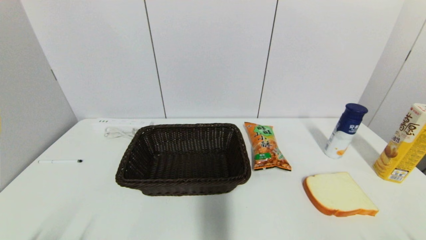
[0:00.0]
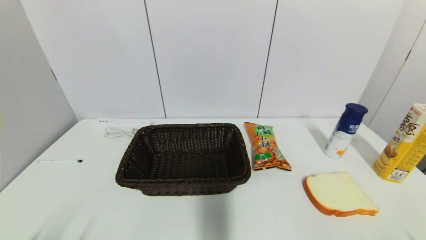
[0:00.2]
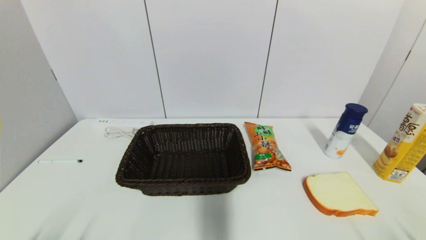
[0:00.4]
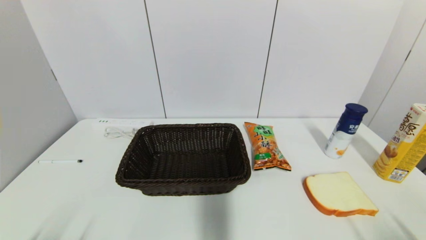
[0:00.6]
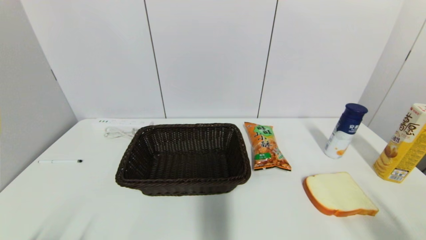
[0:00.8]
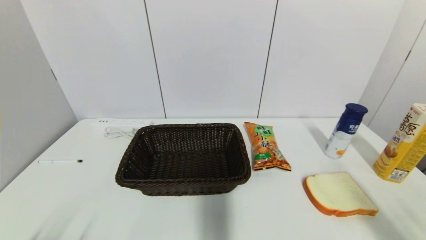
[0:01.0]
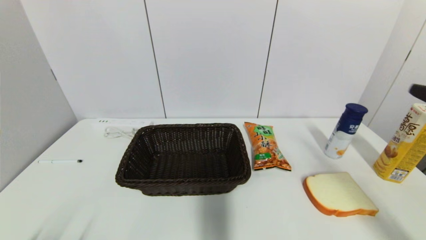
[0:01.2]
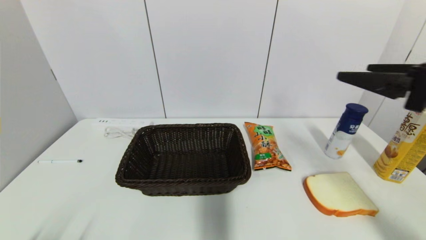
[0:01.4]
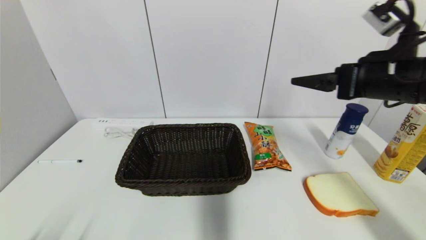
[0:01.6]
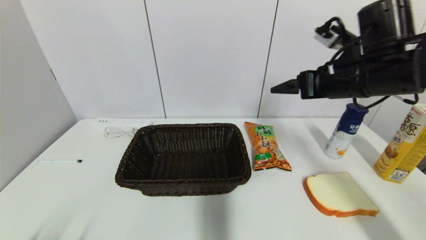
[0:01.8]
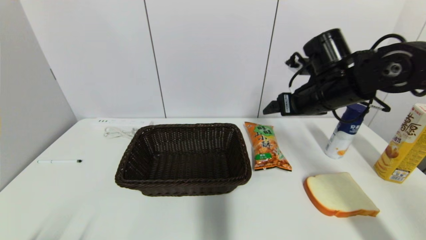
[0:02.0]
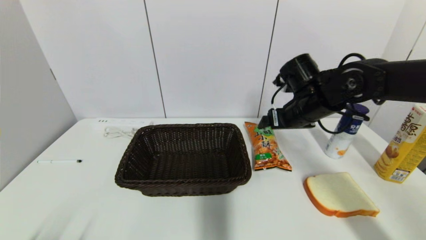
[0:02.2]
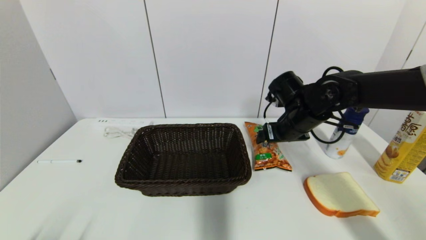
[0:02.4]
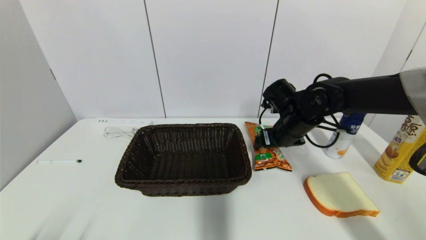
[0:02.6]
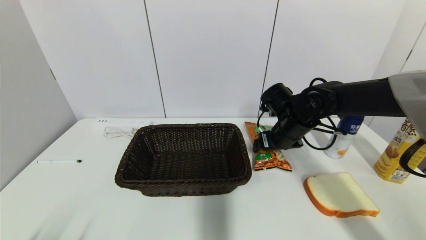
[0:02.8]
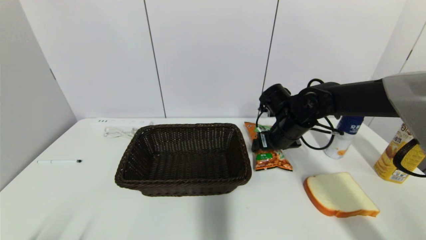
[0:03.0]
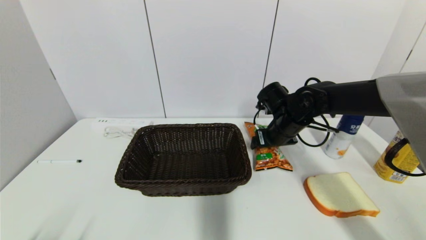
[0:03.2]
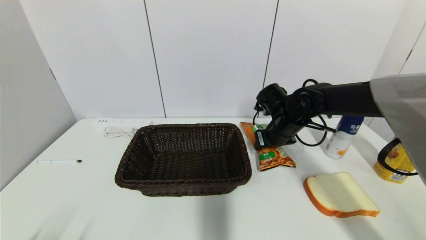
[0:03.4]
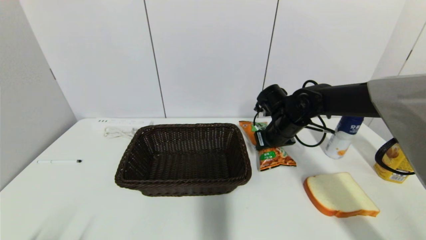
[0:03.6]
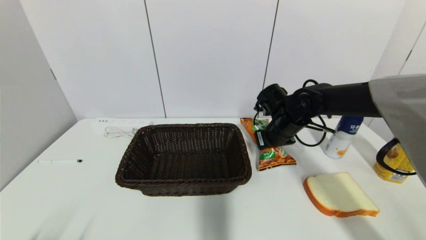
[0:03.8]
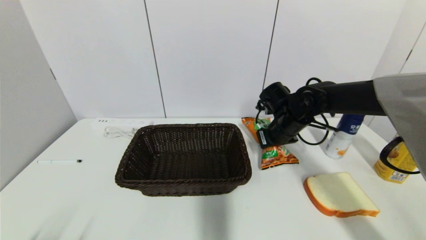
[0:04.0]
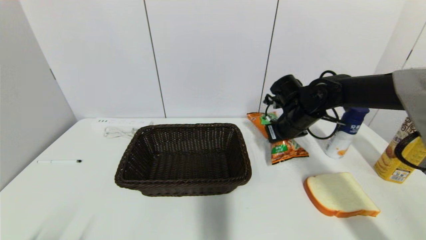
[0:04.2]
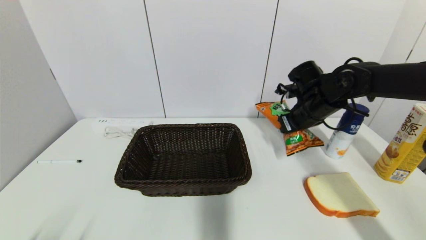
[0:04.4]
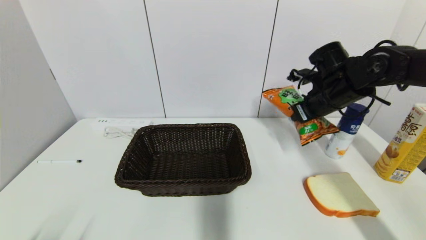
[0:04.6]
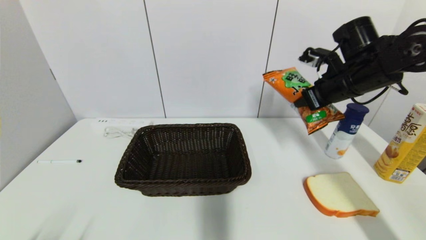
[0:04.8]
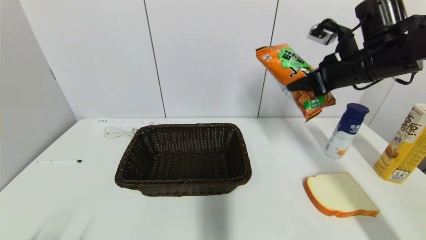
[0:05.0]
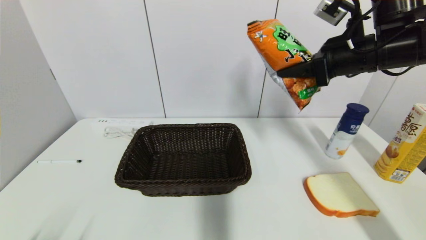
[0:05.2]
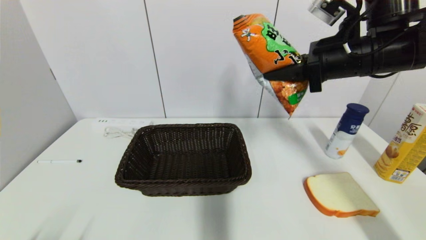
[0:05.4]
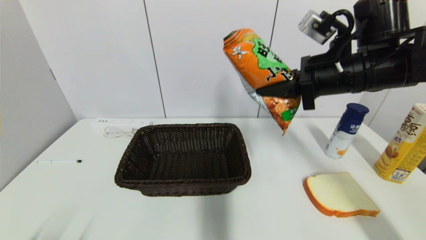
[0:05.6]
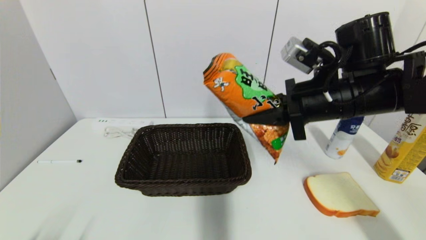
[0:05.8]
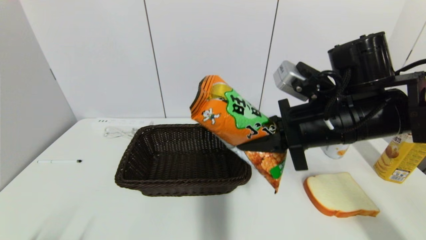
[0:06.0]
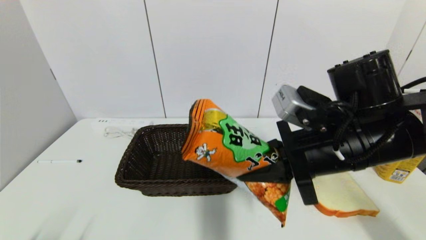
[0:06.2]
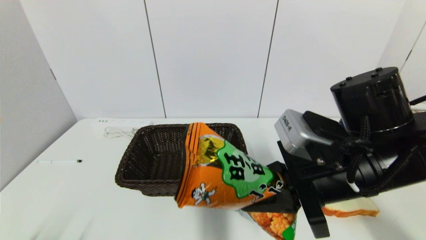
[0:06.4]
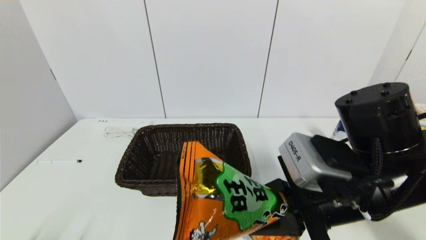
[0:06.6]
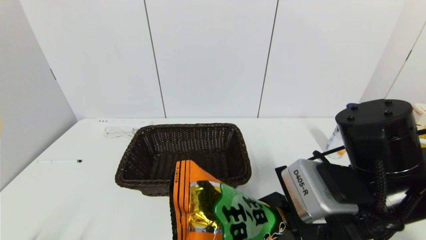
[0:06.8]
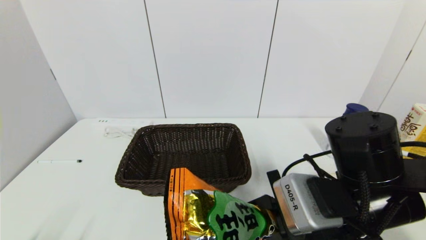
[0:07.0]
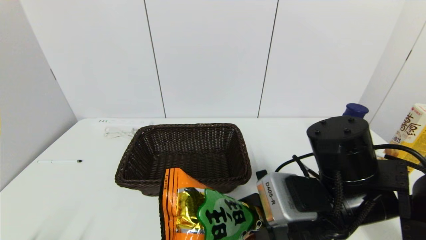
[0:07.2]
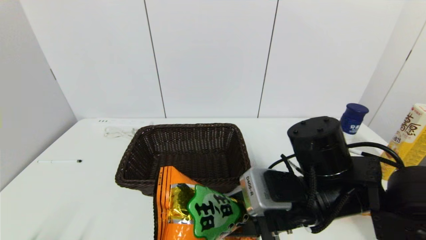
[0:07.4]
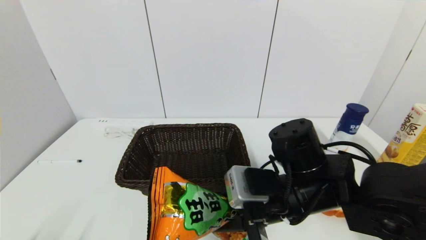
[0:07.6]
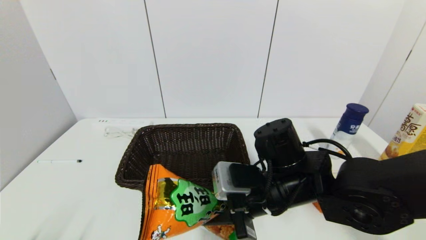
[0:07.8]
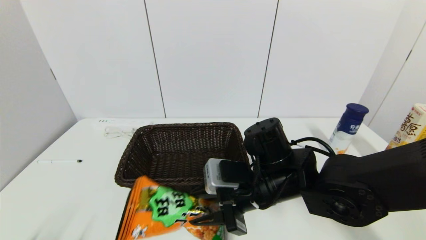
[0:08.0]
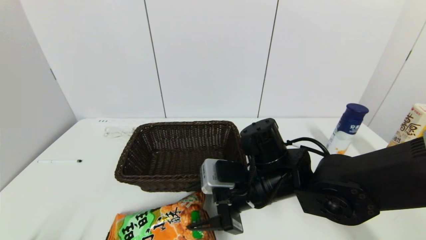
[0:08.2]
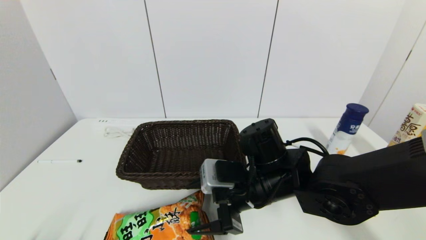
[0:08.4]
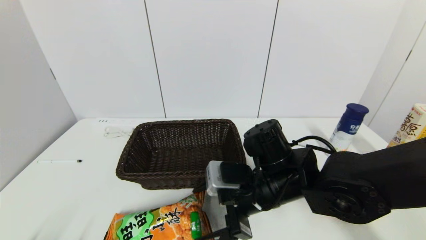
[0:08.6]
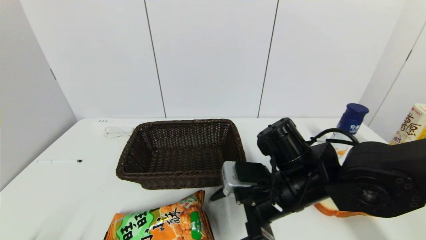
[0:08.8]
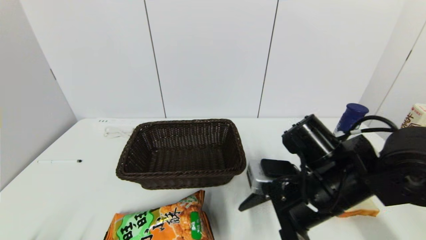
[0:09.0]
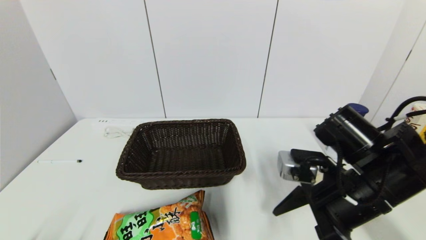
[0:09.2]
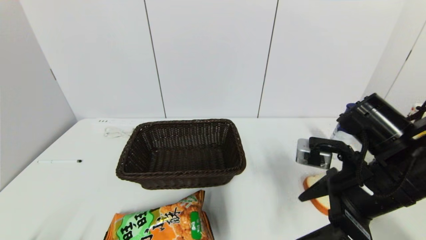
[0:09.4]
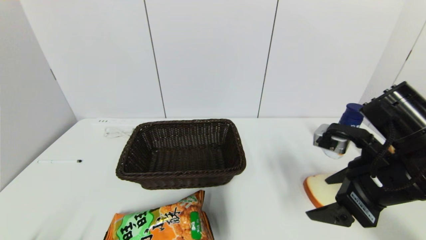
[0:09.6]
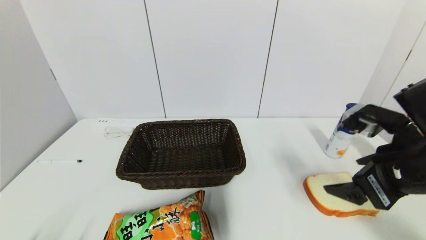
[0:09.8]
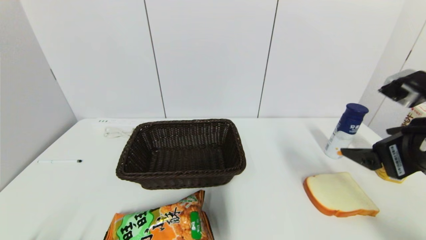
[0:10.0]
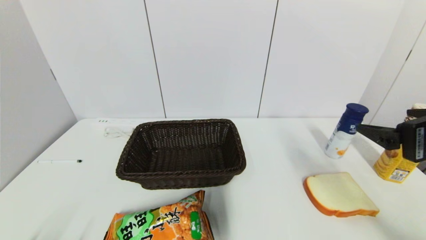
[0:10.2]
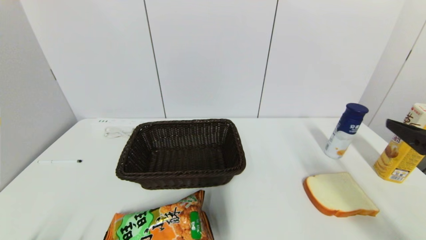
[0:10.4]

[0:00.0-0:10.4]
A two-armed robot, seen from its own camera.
Step, 0:01.2 to 0:03.8: Grasp the cookie with right gripper.
Step, 0:04.0 to 0:08.4: Place the cookie on the table with right gripper.
0:00.0 to 0:01.4: The right gripper heads upward and forward, covering approximately 30 cm.
0:01.4 to 0:03.0: The right gripper shifts roughly 25 cm forward, downward and to the left.
0:03.0 to 0:04.4: The right gripper moves to the right and upward, some 10 cm, and closes.
0:04.4 to 0:06.0: The right gripper heads backward and to the left, covering some 15 cm.
0:06.0 to 0:07.4: The right gripper shifts approximately 10 cm downward.
0:07.4 to 0:09.0: The right gripper opens up.
0:09.0 to 0:10.4: The right gripper shifts about 20 cm to the right, upward and backward.

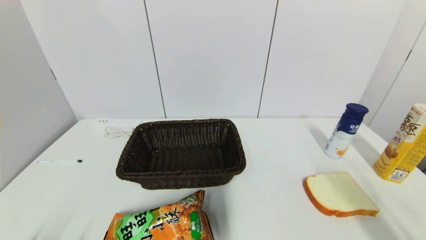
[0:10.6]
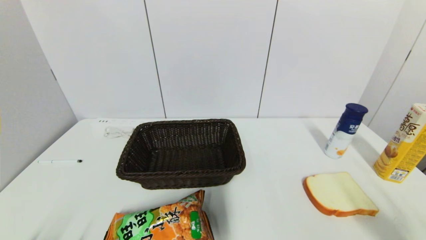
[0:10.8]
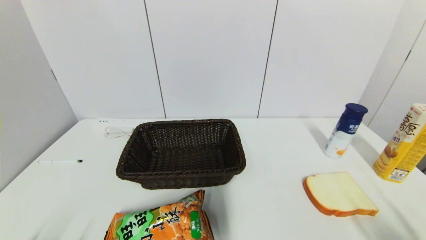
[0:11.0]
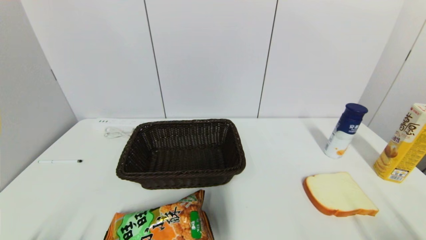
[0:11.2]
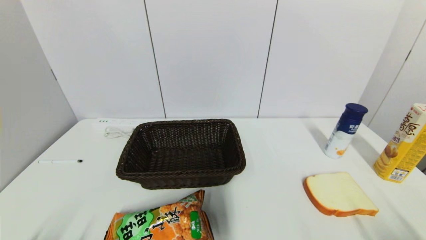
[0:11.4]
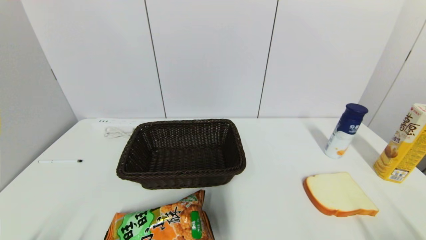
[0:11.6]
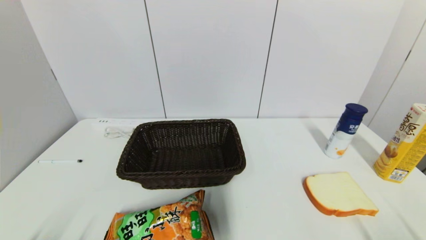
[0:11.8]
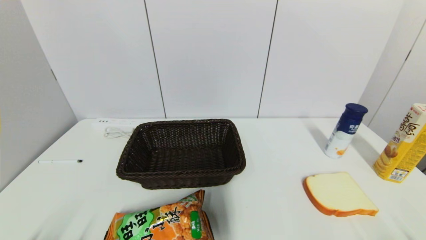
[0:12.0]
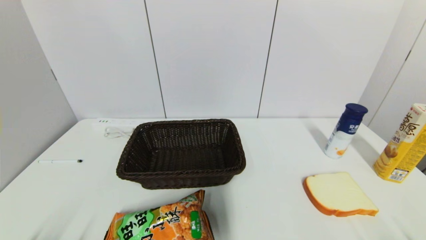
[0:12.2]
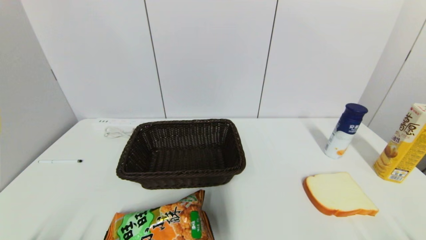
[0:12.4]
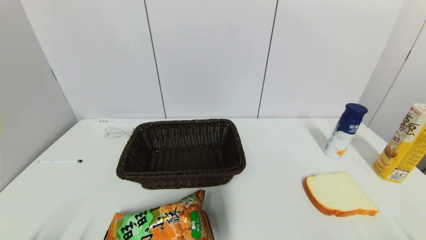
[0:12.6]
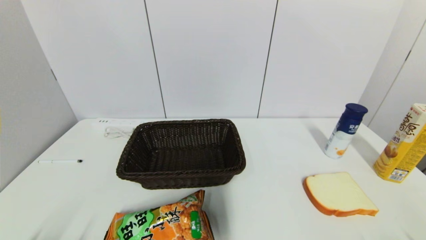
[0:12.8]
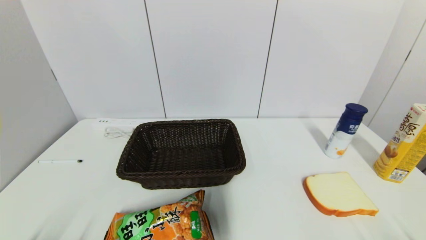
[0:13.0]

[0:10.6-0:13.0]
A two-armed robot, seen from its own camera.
0:10.6 to 0:11.8: The right gripper shifts about 15 cm downward and backward.
